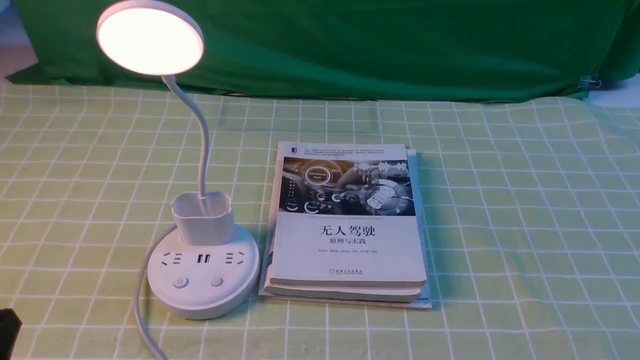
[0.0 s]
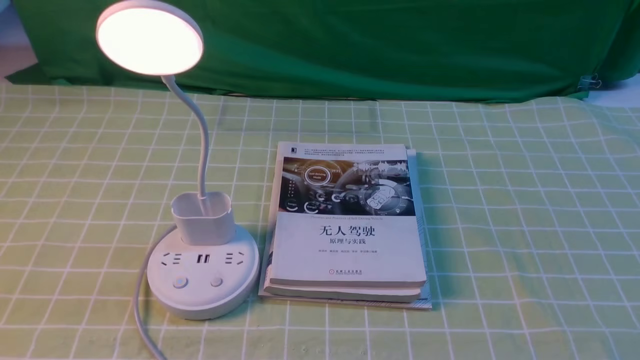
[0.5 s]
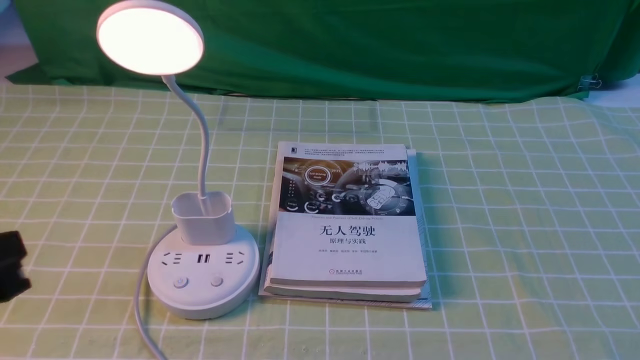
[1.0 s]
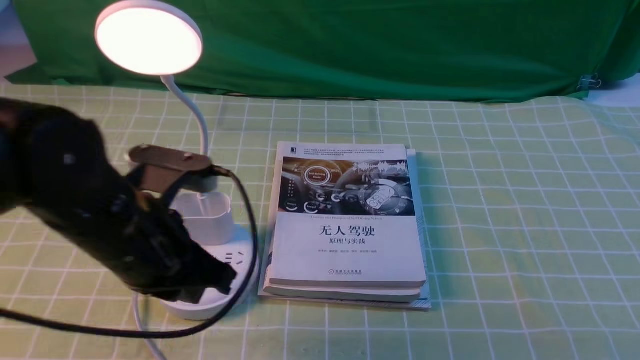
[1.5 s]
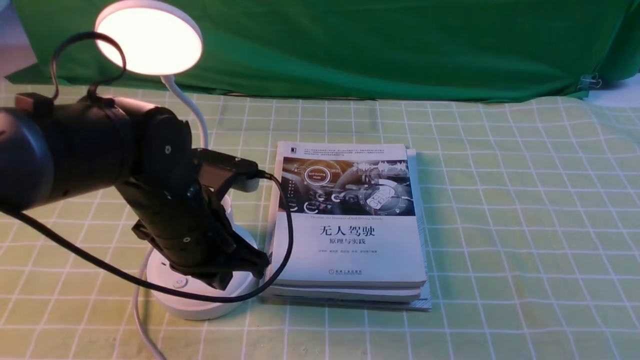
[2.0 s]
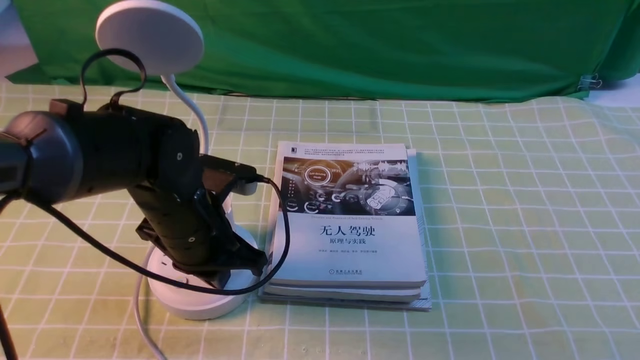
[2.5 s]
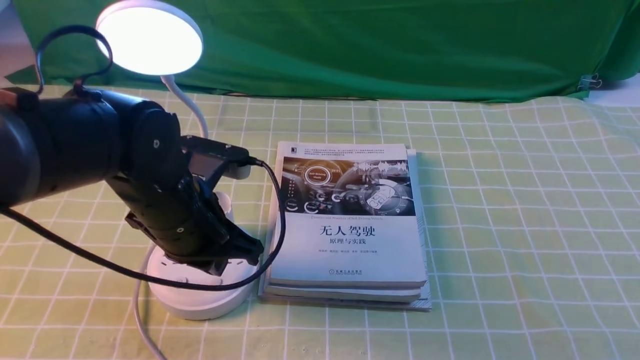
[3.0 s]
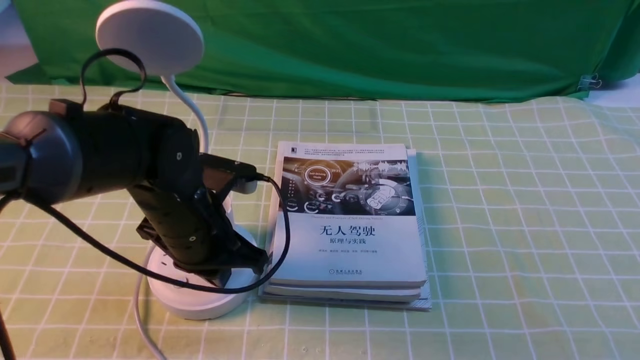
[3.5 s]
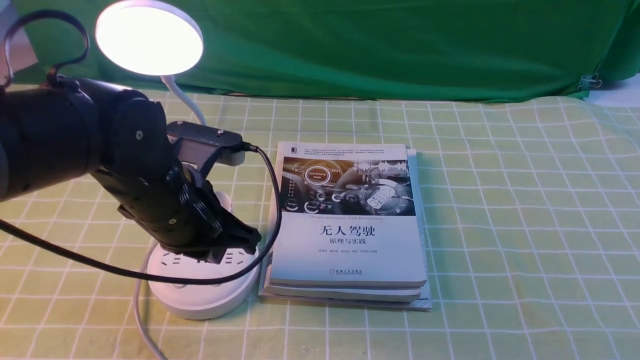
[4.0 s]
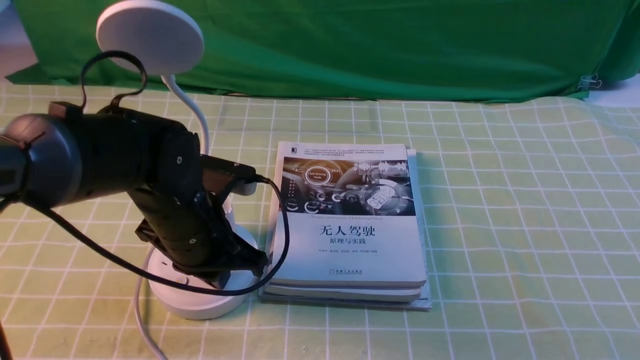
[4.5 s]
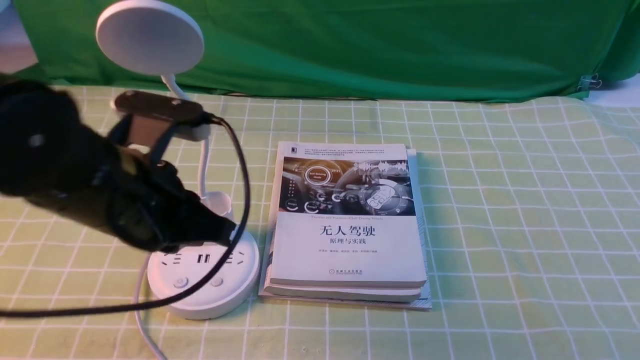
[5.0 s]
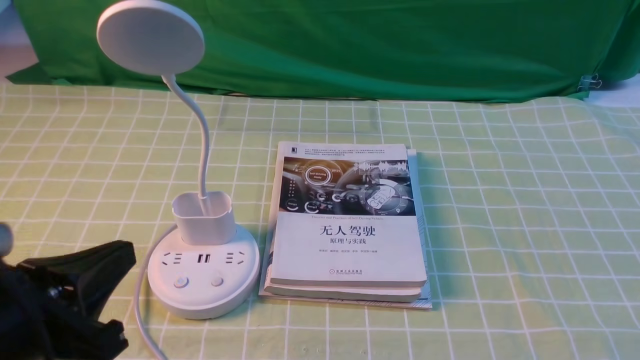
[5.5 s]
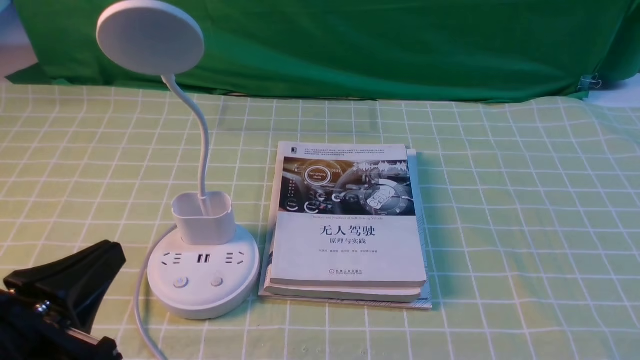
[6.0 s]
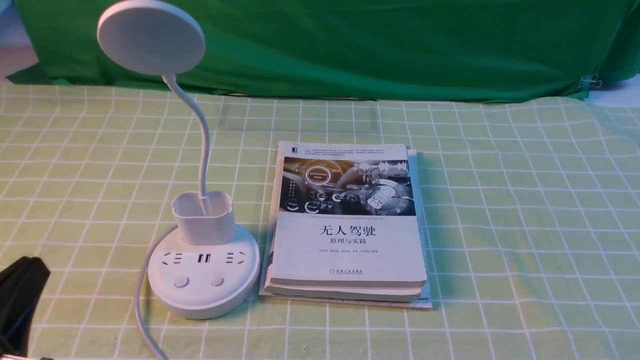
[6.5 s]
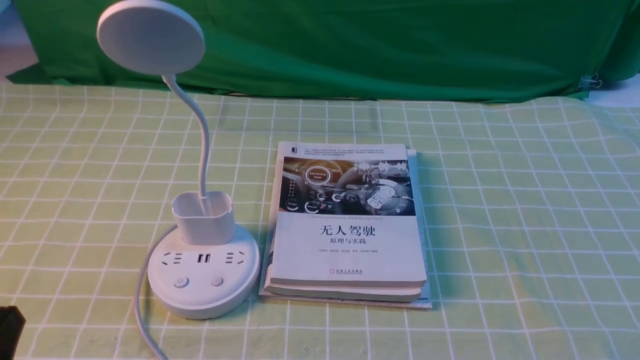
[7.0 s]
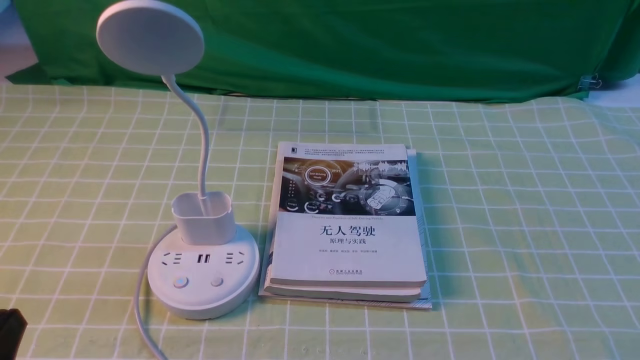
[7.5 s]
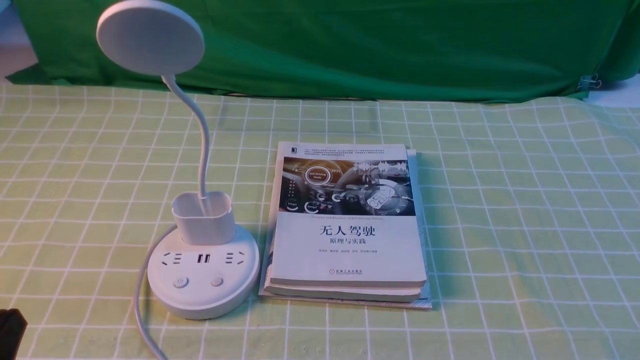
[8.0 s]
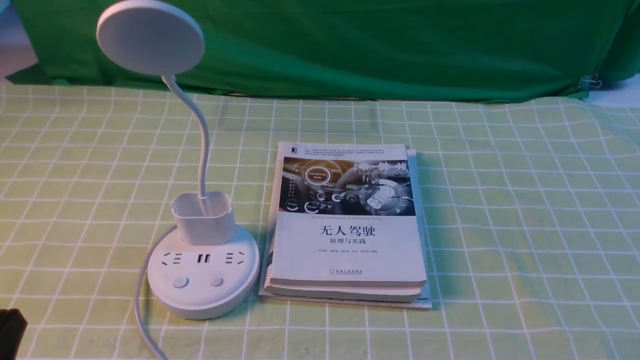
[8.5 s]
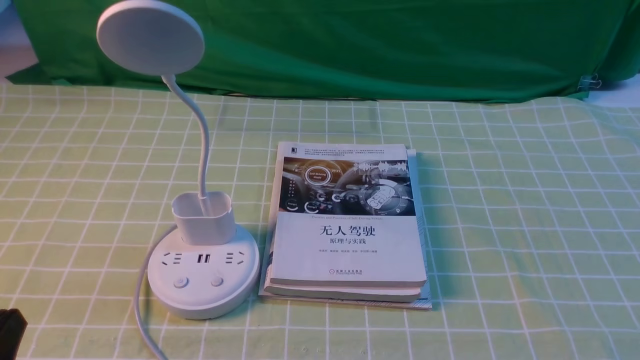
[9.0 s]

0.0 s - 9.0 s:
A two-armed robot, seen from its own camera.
Task of the whole recording: turn off the desk lamp on the green coffee tablecloth by hand.
Step, 0.0 s - 4.5 s: use the left arm to press the button switch on the lamp holder.
0.0 s - 2.0 s: The left gripper goes roughly 25 cm forward and to the right.
2.0 s - 4.5 s: The grippers move only a little.
4.5 s - 7.0 s: The left gripper is displaced backward and to the left by roughly 25 cm, and opens and closes again.
7.0 s - 9.0 s: The two grippers keep their place.
